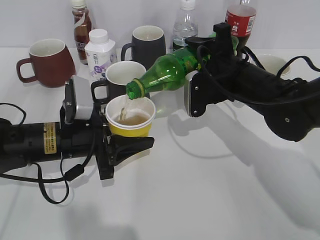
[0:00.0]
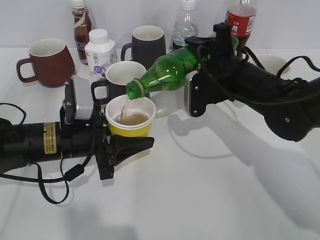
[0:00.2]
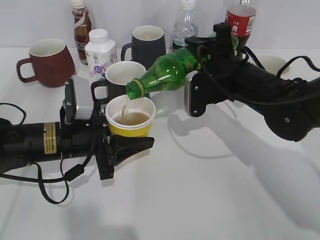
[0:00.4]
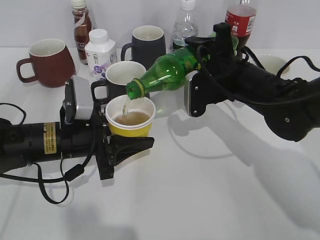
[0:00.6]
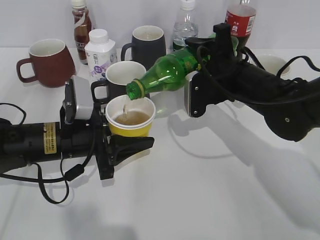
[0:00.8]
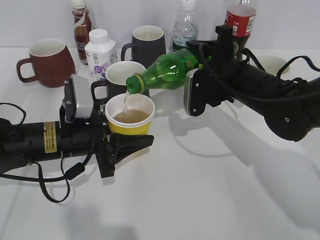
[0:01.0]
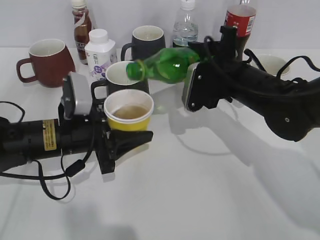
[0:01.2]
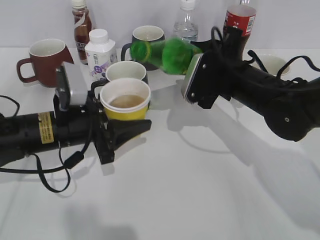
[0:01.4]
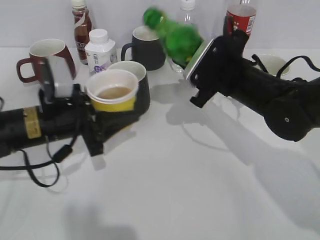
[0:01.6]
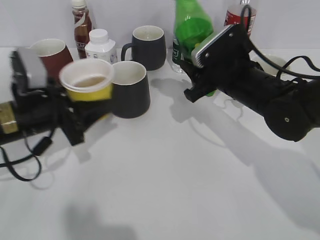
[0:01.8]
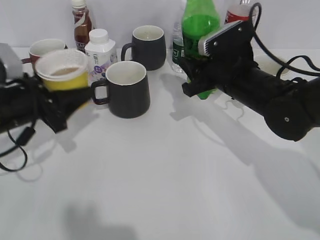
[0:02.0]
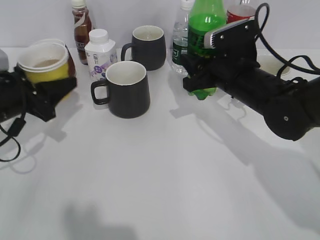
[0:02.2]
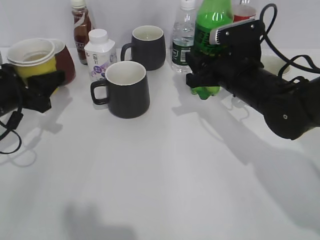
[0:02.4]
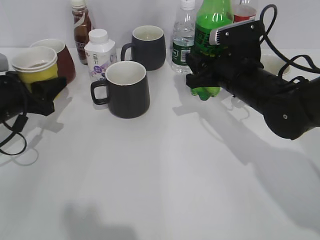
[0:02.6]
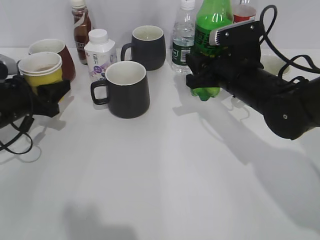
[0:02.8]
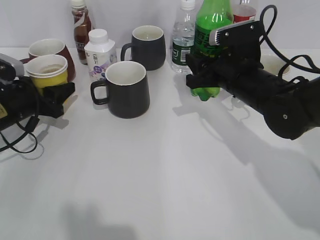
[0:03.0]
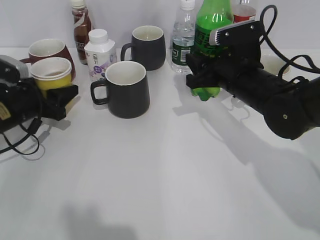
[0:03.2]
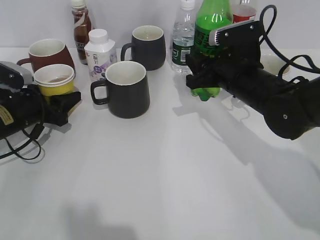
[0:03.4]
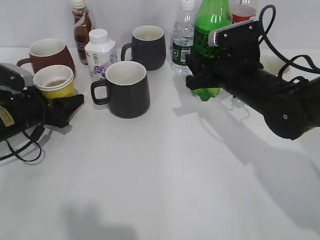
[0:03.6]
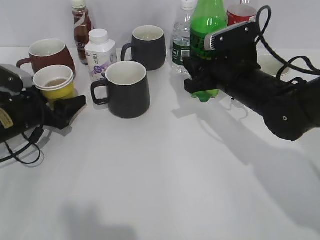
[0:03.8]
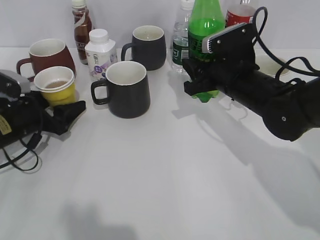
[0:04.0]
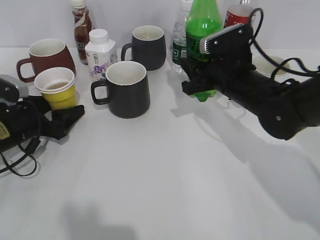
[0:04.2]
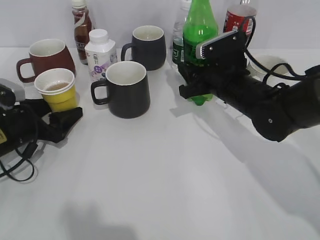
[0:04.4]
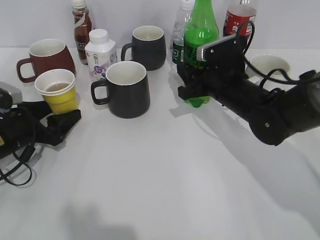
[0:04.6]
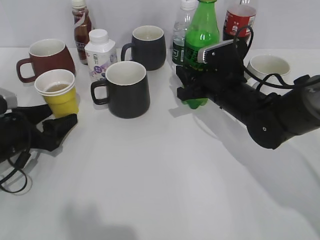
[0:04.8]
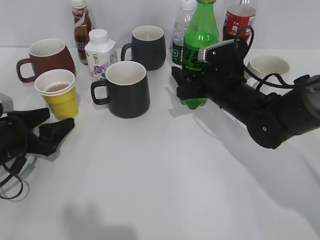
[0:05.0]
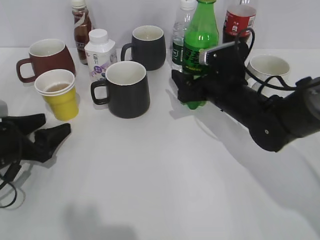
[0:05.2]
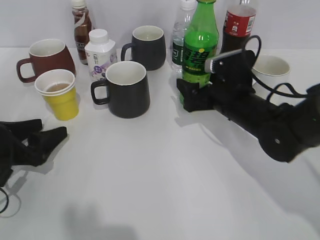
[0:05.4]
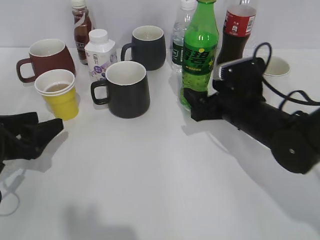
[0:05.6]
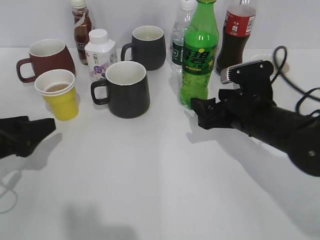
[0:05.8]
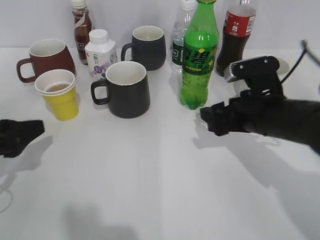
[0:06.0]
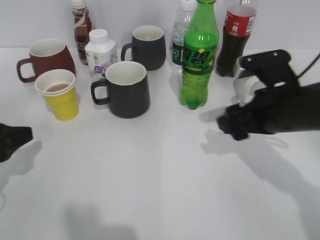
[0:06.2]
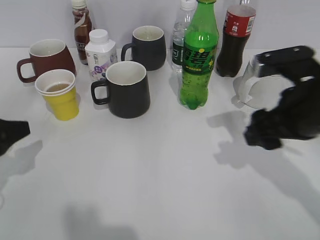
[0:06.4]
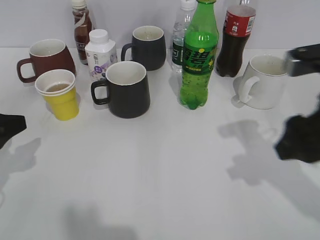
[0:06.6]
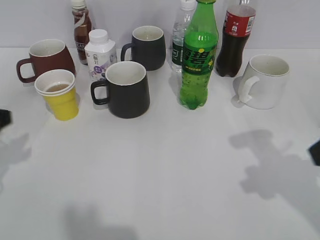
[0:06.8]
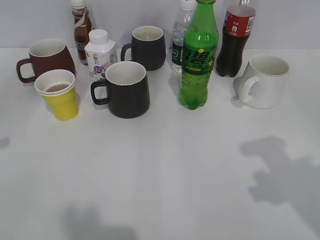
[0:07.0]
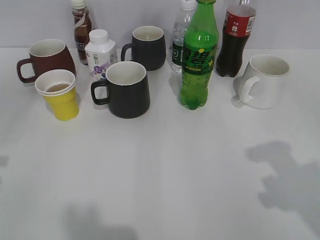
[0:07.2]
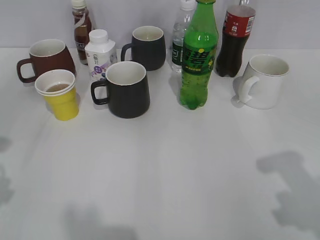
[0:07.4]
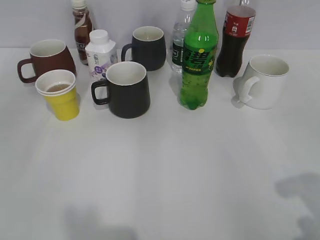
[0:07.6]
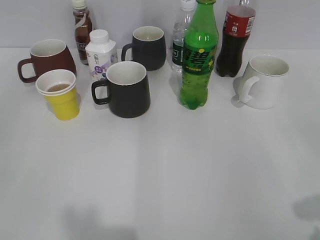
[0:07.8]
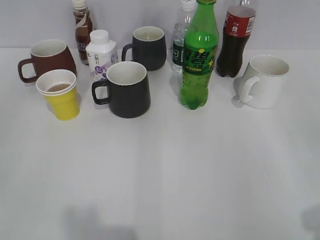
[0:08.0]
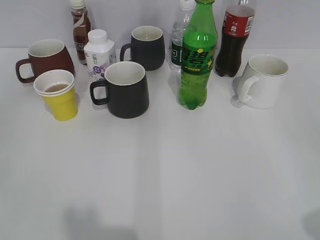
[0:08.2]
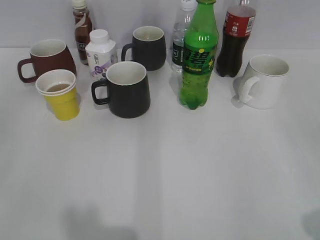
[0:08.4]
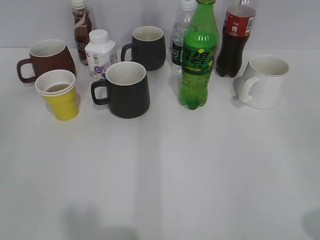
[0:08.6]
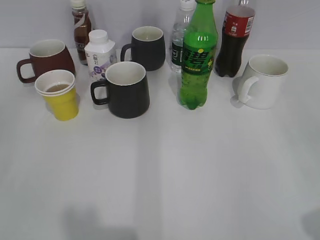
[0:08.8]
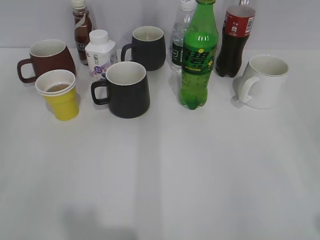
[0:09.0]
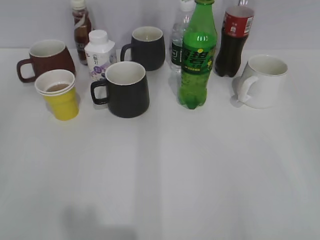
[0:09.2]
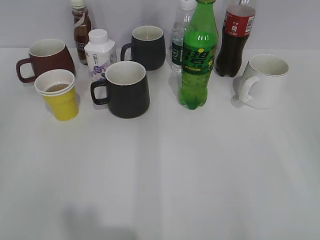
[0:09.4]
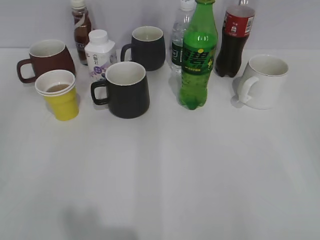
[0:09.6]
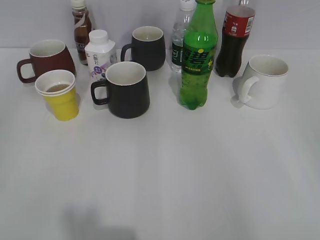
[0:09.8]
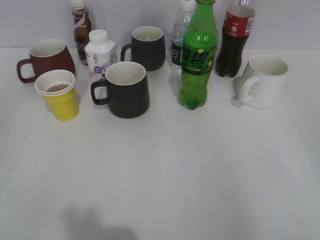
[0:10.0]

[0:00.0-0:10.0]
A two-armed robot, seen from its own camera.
Step, 0:01.6 to 0:03.0: Place the yellow paper cup on the table with left gripper.
Step, 0:03.2 to 0:05.2: Place the sprite bottle on the table with right gripper.
0:01.4 to 0:02.8: The left gripper is displaced to the left and forward by approximately 15 cm.
0:02.8 to 0:04.2: The left gripper opens up.
0:04.2 to 0:05.8: The left gripper heads backward and upward, covering roughly 10 cm; the right gripper moves approximately 5 cm, and opens its fingers.
0:05.8 to 0:07.2: The right gripper travels upward, backward and to the right by some 30 cm; the left gripper goes about 10 cm upward.

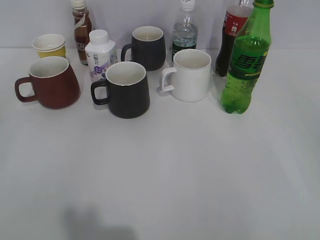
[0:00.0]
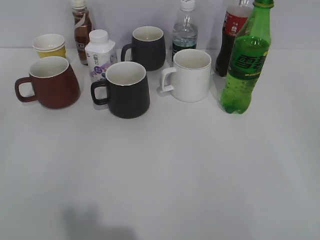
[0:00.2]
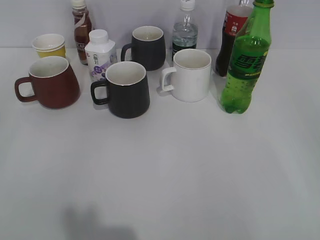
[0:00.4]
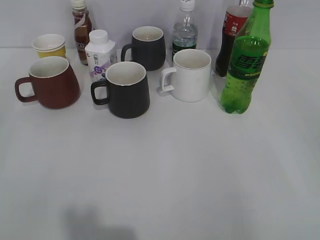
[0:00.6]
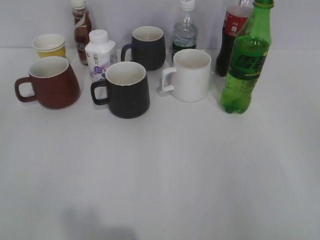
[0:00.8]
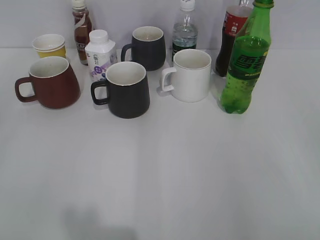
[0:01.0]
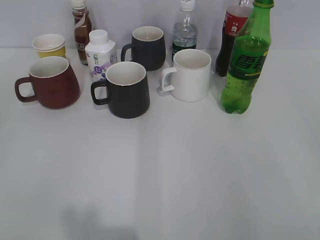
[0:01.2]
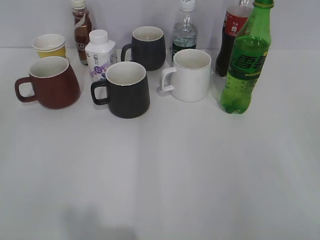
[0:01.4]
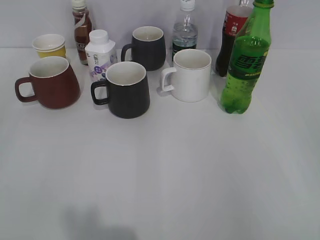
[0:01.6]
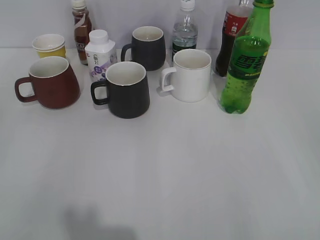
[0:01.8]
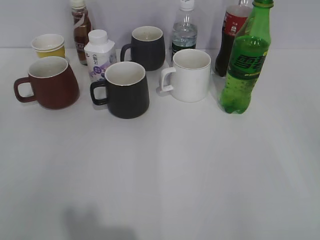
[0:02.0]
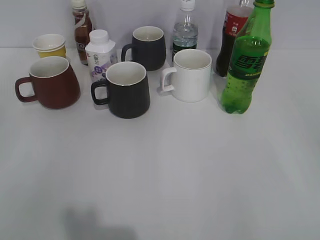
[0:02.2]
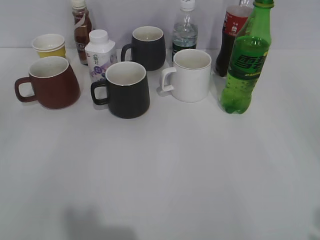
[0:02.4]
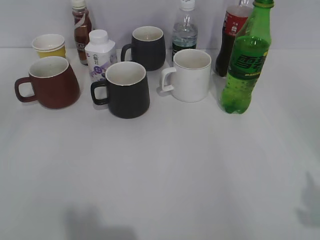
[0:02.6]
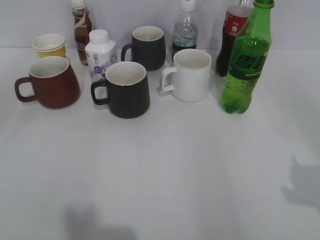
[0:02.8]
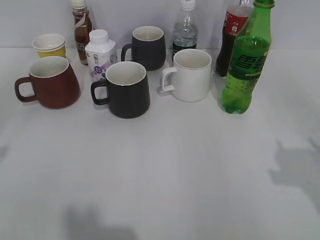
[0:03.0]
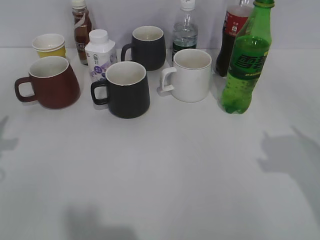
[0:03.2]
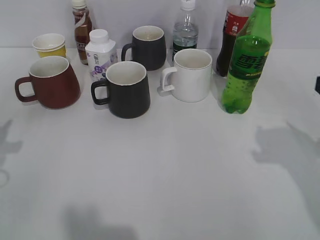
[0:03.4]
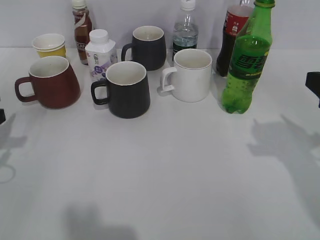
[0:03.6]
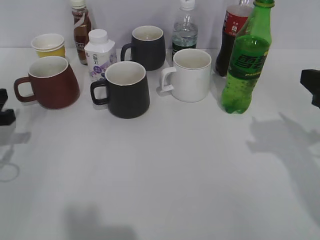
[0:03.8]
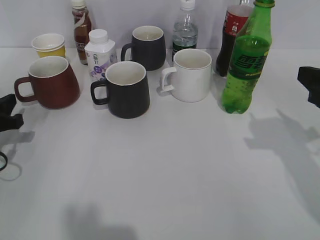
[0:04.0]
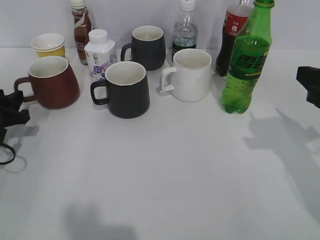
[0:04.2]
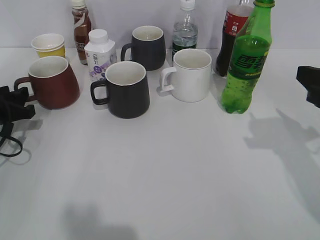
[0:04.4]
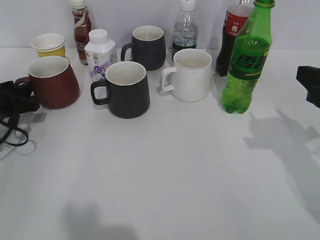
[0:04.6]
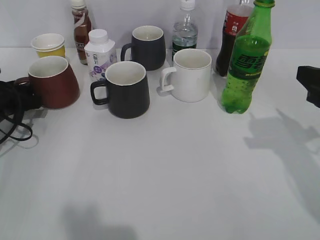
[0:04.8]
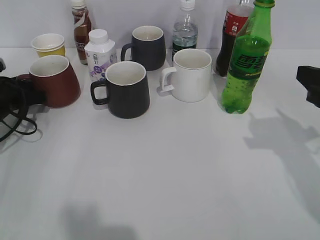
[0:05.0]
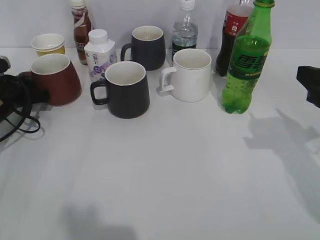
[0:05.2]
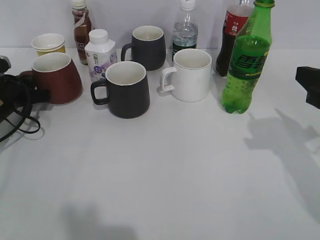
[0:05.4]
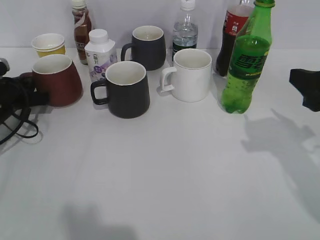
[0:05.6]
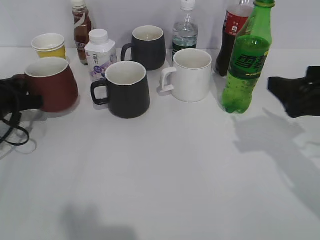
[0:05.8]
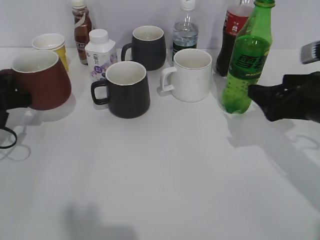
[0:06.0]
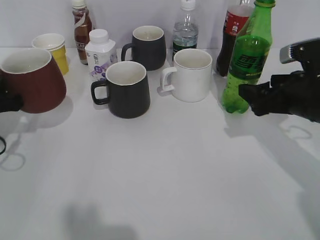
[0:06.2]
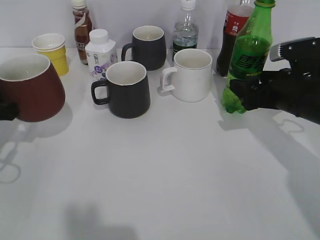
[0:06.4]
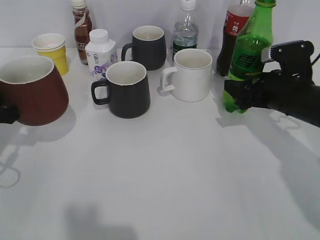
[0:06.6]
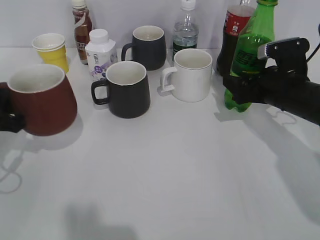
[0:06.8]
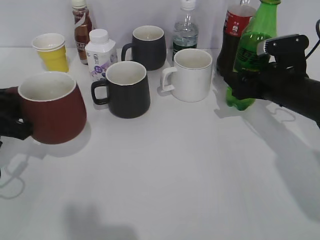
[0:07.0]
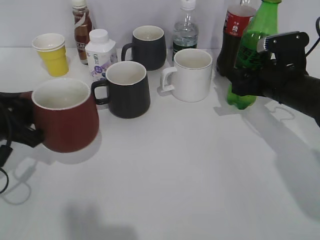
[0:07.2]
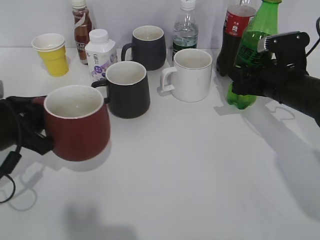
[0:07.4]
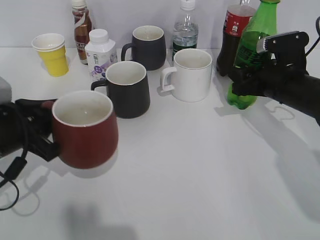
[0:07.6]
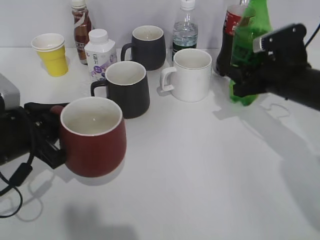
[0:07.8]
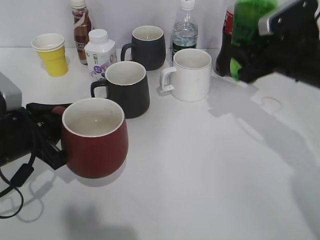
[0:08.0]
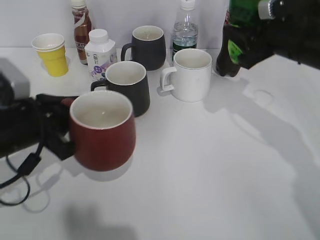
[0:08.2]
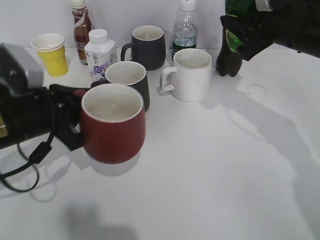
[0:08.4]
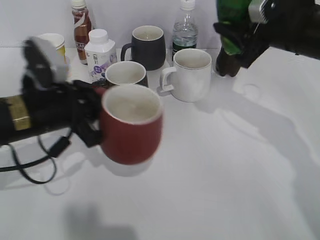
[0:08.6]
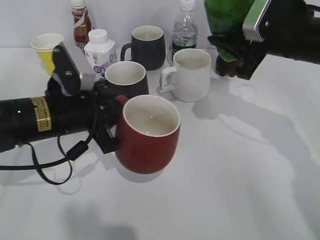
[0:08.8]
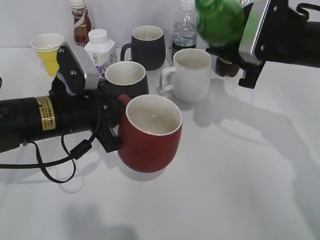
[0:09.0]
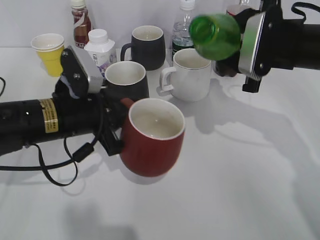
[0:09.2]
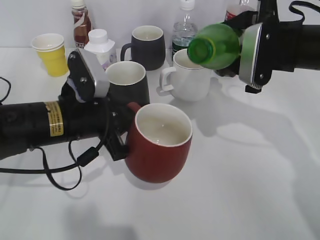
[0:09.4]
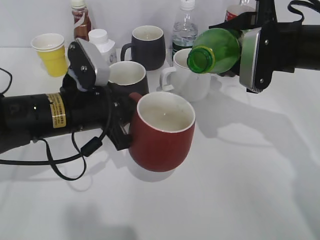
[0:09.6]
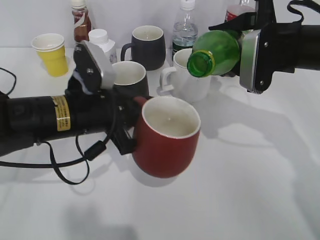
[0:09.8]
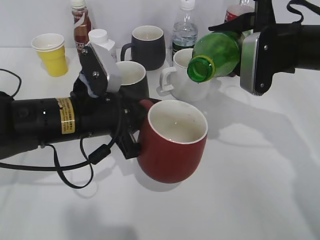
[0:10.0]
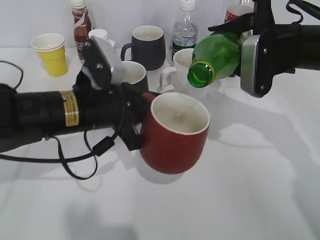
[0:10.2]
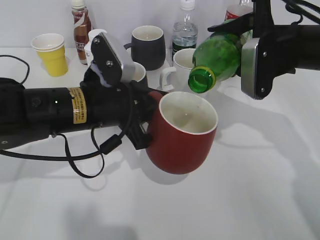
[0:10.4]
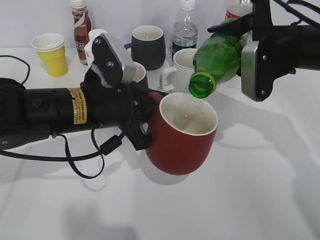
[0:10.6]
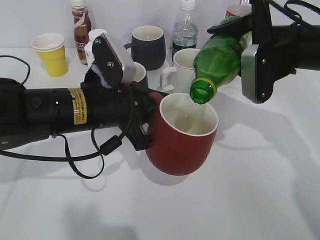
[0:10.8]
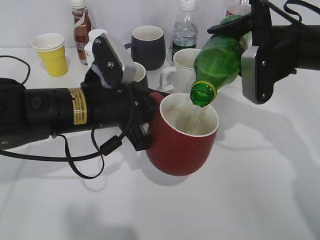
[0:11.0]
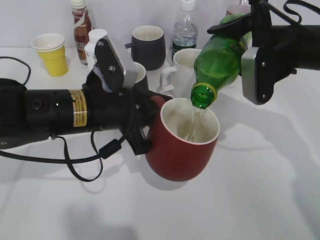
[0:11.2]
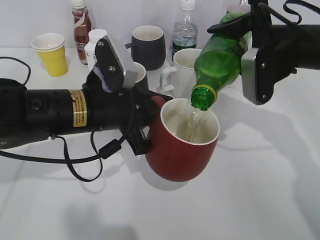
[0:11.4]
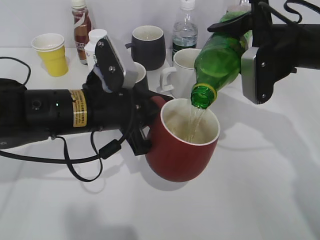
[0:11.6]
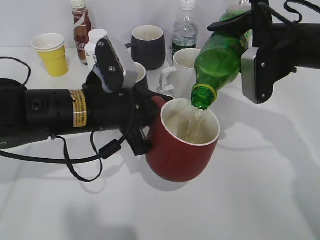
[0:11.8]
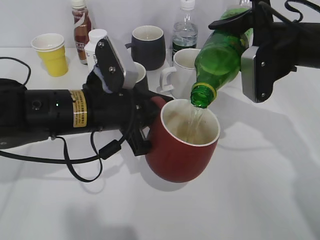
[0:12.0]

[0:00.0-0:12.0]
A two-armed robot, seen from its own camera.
Step, 0:02.0 to 0:05.2: Lift the red cup with left gripper.
Step, 0:05.4 to 0:07.6: Grasp the bottle with sprite with right gripper.
0:03.0 to 0:04.4: The right gripper heads forward, covering about 10 cm; the left gripper shifts about 20 cm downward and forward, and opens.
0:04.4 to 0:06.0: The left gripper closes. Meanwhile the right gripper ends up some 5 cm from where it was, and opens its fingers.
0:06.0 to 0:07.6: The right gripper goes some 10 cm forward, and closes up, while the left gripper goes about 10 cm backward and to the right.
0:07.6 to 0:09.0: The right gripper is displaced upward by about 10 cm. The left gripper is displaced to the right by about 10 cm.
0:10.4 to 0:12.0: The grippers move only a little.
